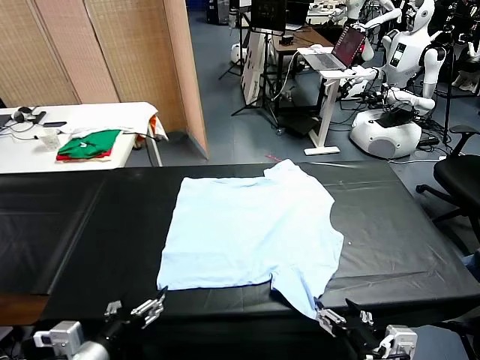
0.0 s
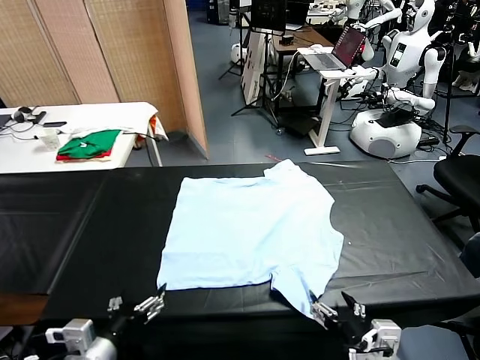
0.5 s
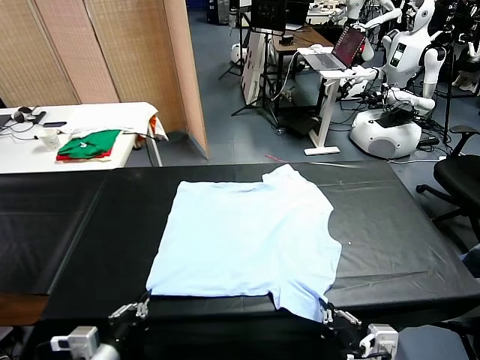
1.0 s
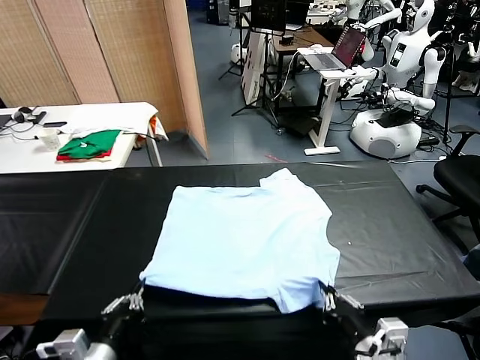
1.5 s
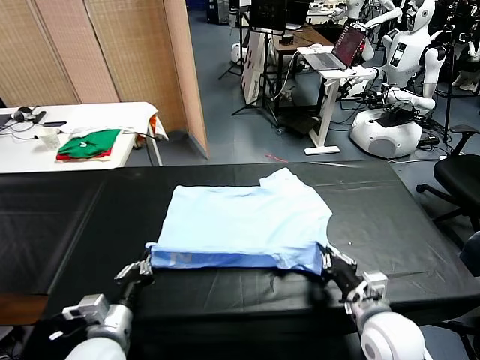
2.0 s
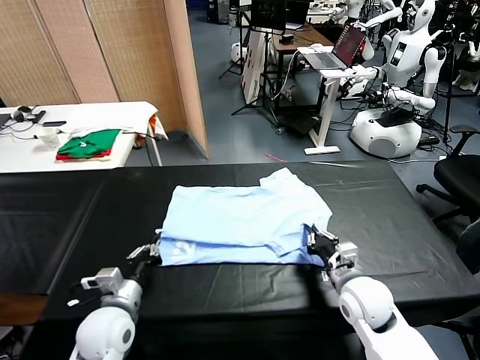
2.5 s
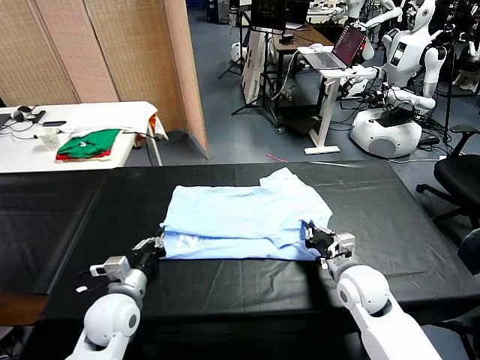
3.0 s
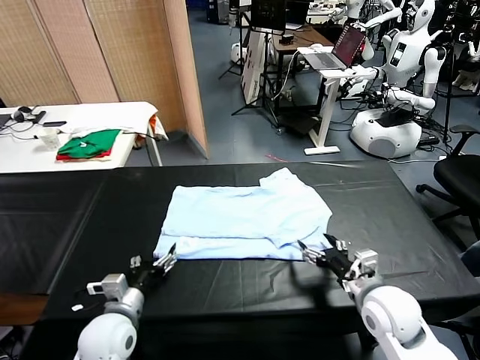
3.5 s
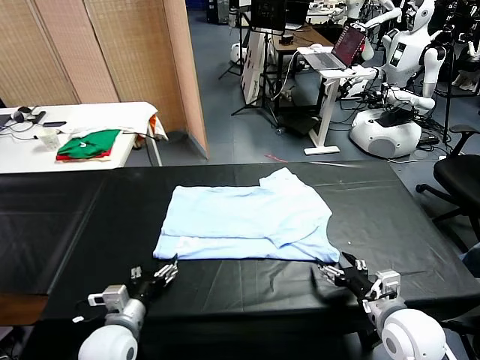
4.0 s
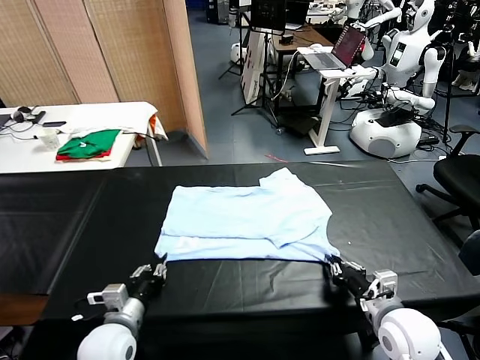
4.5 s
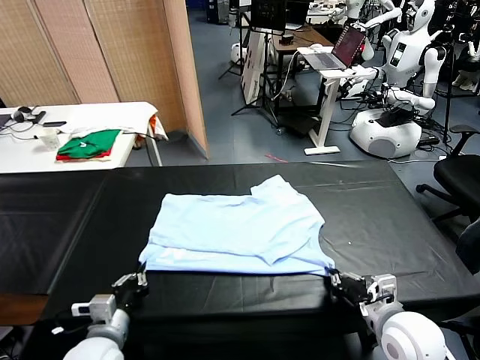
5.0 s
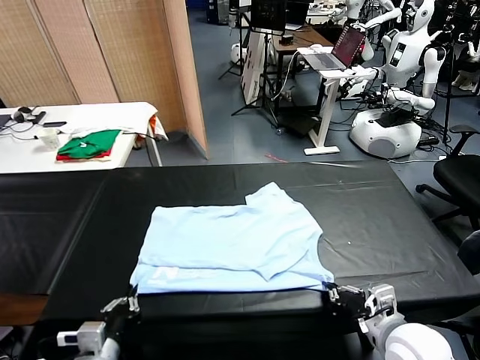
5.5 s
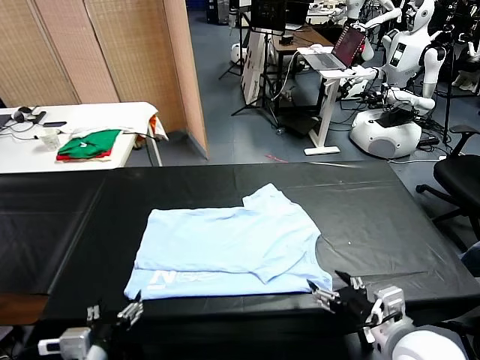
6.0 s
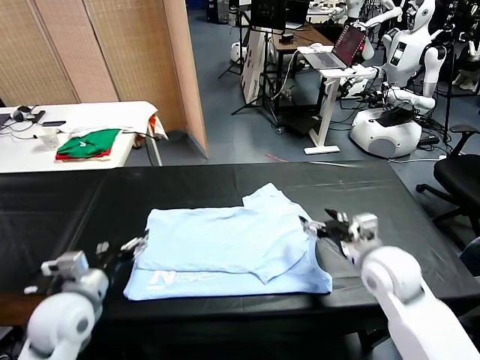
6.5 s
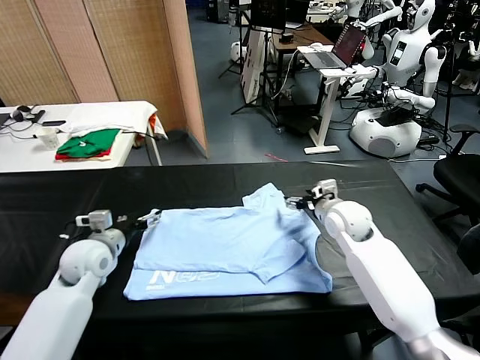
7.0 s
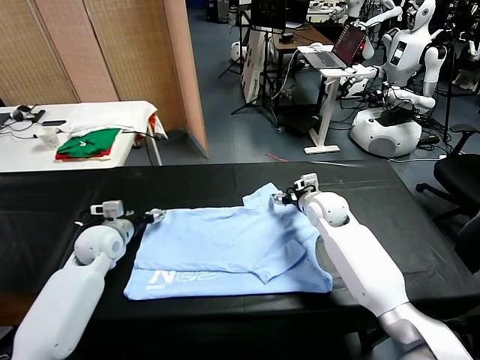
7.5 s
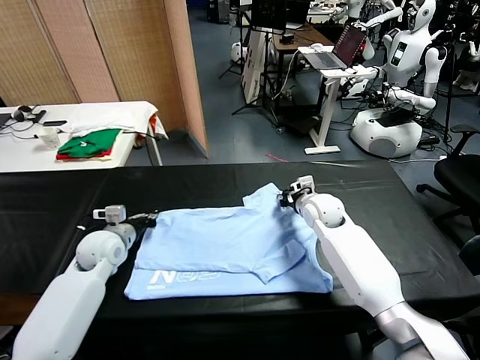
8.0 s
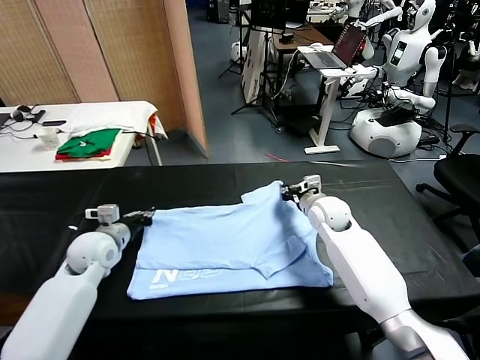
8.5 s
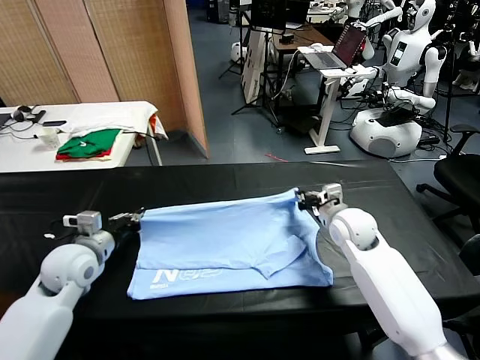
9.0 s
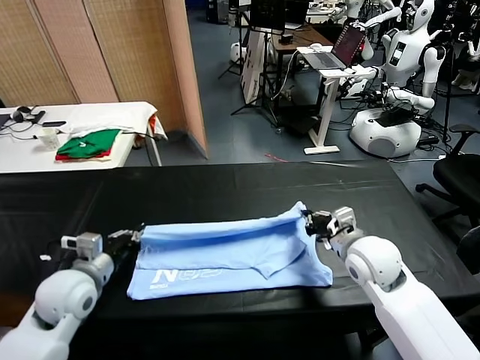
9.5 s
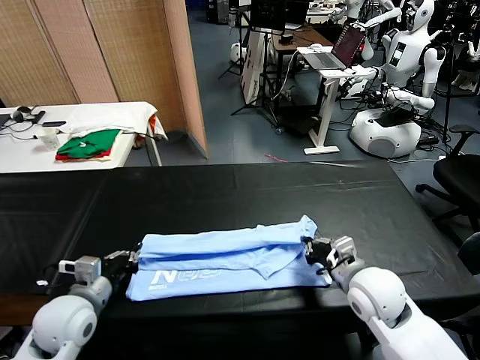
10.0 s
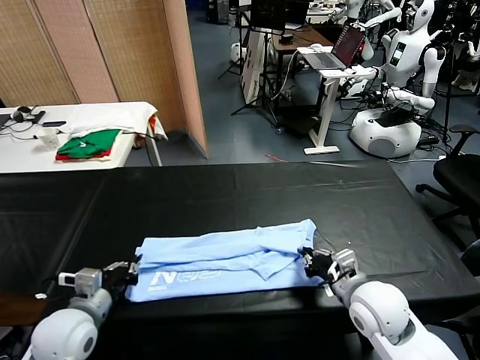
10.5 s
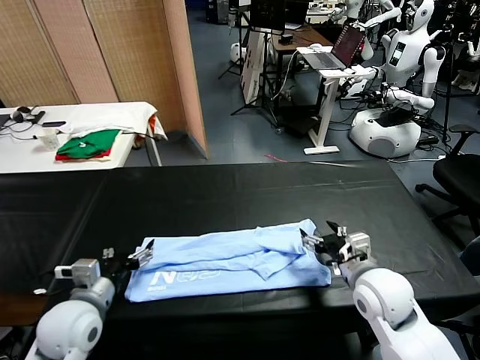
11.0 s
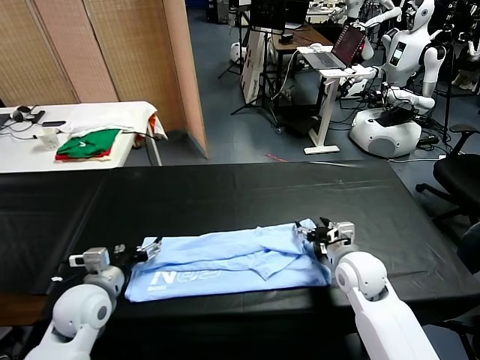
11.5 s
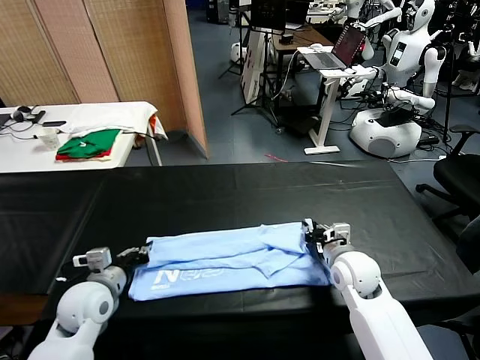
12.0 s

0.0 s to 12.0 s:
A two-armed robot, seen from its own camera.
Task of the whole recording: fold and organize the clothes.
Step, 0.0 to 0.5 s: use both grippers simultaneously to clamp the lower edge of the clothing fabric.
Step, 1.5 to 3.0 s: use both grippers to drag the lower edge of the fabric forward and fold it over the upper edge.
Step, 3.5 to 5.5 s: Drag the clothes downward with both gripper.
Step, 6.0 to 8.0 s: use both grippers simultaneously to clamp the upper edge of the clothing fabric.
Step, 8.5 to 10.5 s: use both grippers to drag the upper edge of the fabric backward and fold it over the lower edge.
2.0 to 4.0 s: The right gripper travels forward by about 10 cm, and opens its fingers, while the left gripper ends up approximately 5 cm from where it was, and opens its fingers.
4.0 to 6.0 s: The left gripper is displaced upward, forward and to the left by some 15 cm, and closes, then opens again; the right gripper is displaced backward by roughly 5 cm, and opens up.
6.0 to 8.0 s: The left gripper shifts some 10 cm forward, and closes. Meanwhile the right gripper goes approximately 35 cm forward, and closes.
8.0 to 10.0 s: The grippers both shift backward by approximately 20 cm.
10.0 to 12.0 s: The left gripper shifts roughly 5 cm forward, and opens and closes again. The right gripper moves downward and forward, approximately 10 cm, and opens, then closes once more.

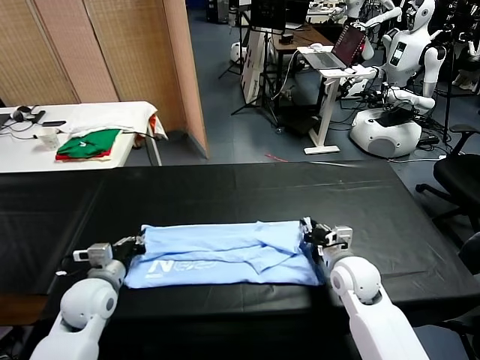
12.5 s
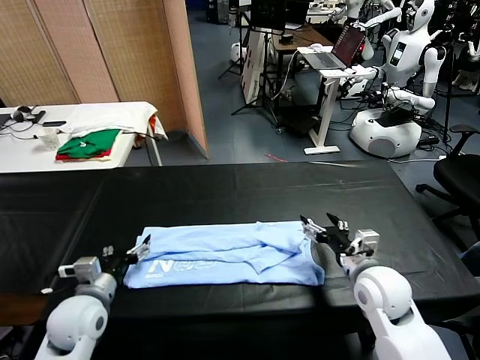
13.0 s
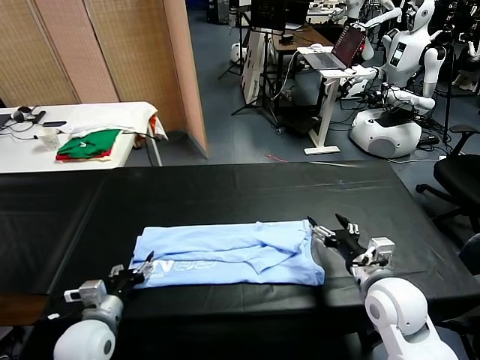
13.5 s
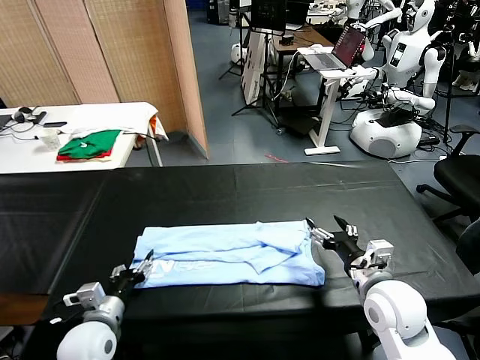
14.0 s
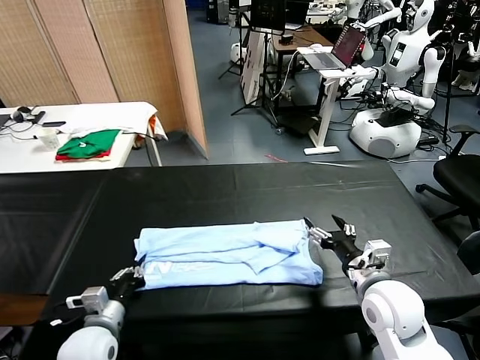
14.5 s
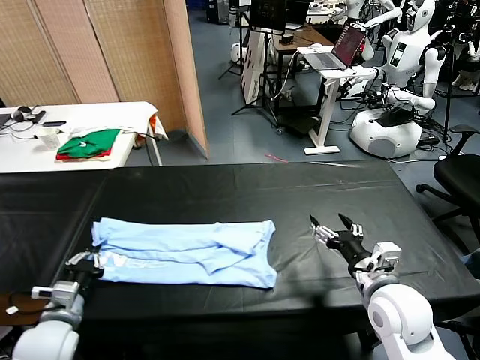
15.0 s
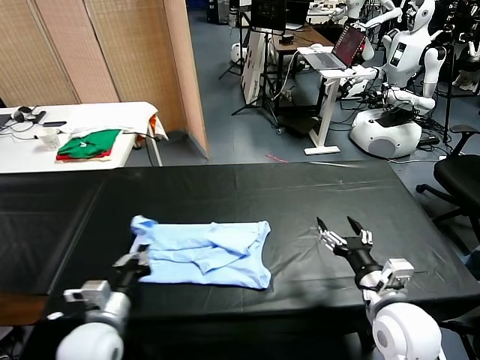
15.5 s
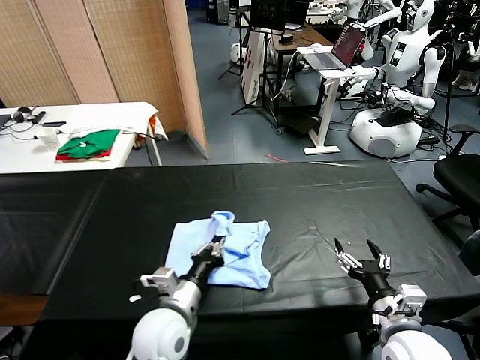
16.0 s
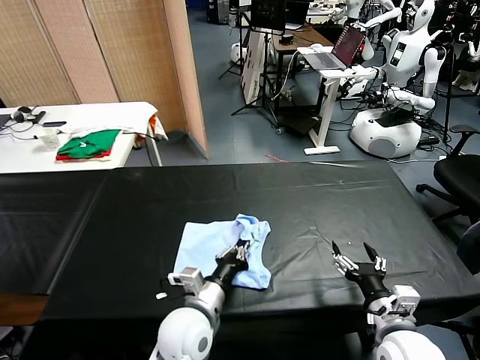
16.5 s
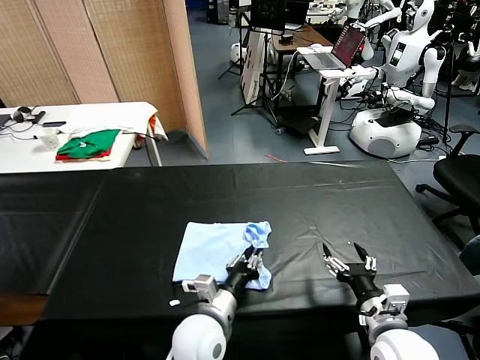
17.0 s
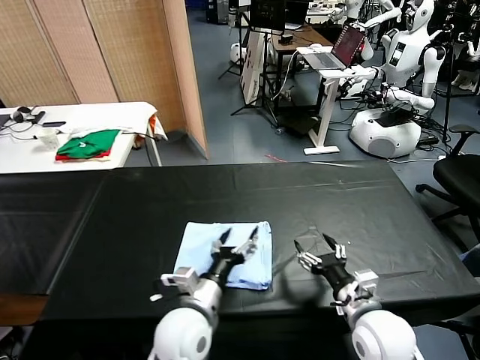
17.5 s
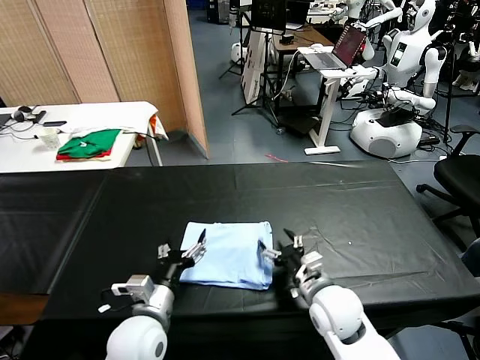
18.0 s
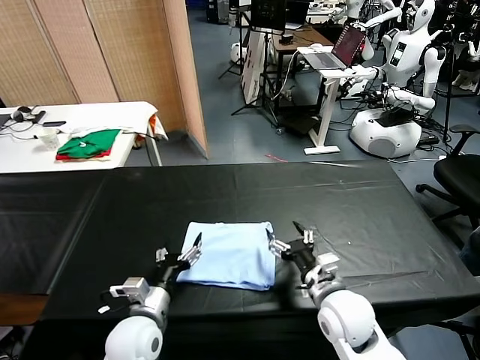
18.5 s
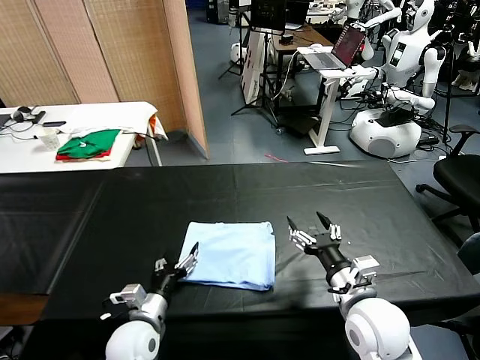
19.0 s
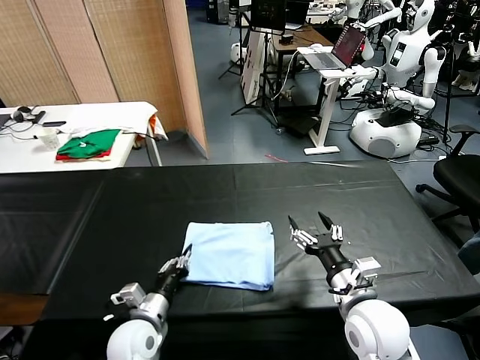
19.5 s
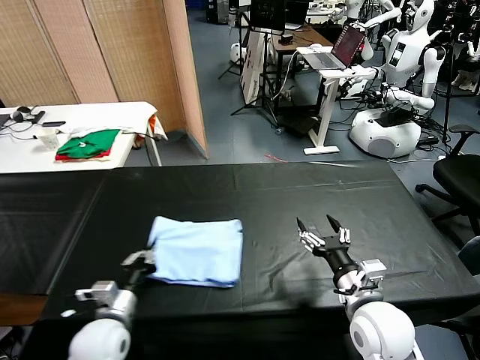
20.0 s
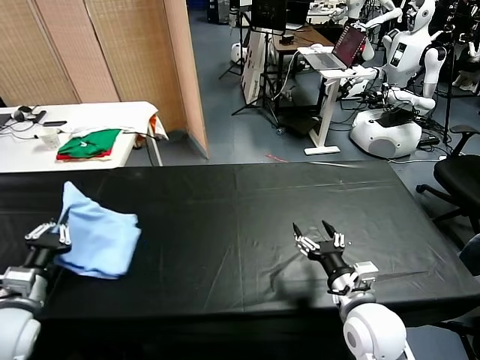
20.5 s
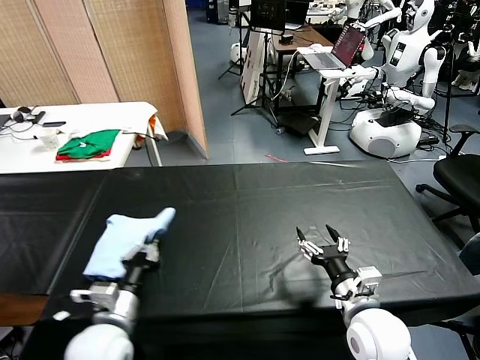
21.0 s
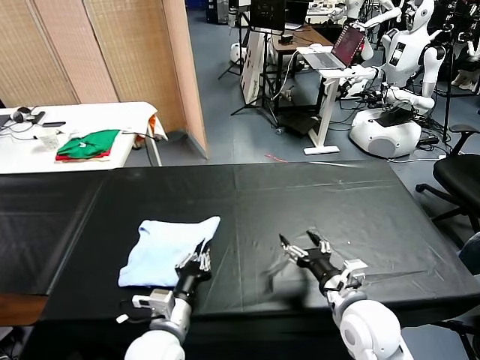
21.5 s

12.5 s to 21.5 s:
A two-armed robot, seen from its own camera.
Task of the whole recording: fold and organize the clothes.
Step, 12.5 to 14.5 s: use the left gripper to clamp the left edge of the fabric.
Step, 15.0 to 17.0 s: use the left gripper to drag the left edge of the fabric to the left and folds it over the right edge.
12.5 to 14.5 s: The left gripper shifts roughly 5 cm backward, and opens, then closes again; the right gripper heads backward and upward, covering roughly 10 cm, and opens its fingers.
14.5 to 17.0 s: The right gripper is displaced backward by some 10 cm, while the left gripper heads to the right, covering some 25 cm, and opens up.
17.0 to 19.5 s: The left gripper moves to the left, some 15 cm, and closes.
19.5 to 21.5 s: The left gripper moves upward, about 5 cm, and goes to the left and returns, roughly 15 cm each way.

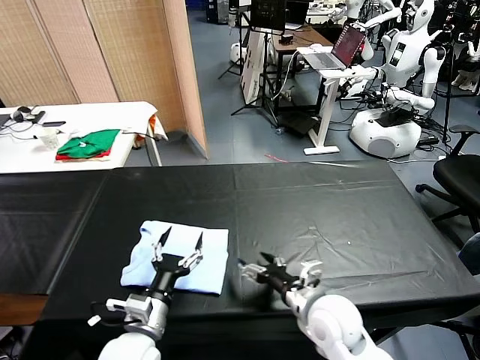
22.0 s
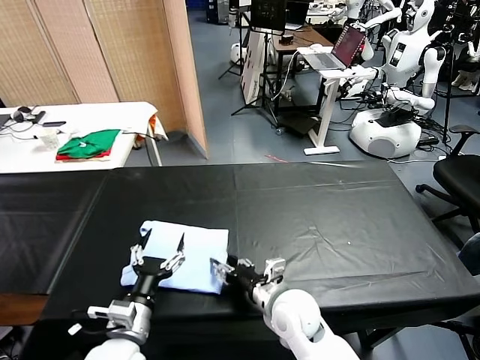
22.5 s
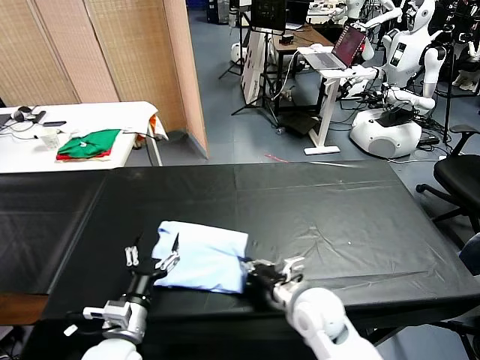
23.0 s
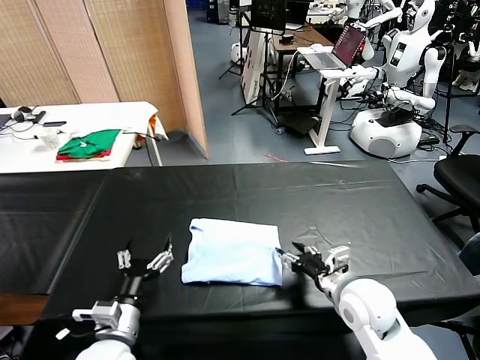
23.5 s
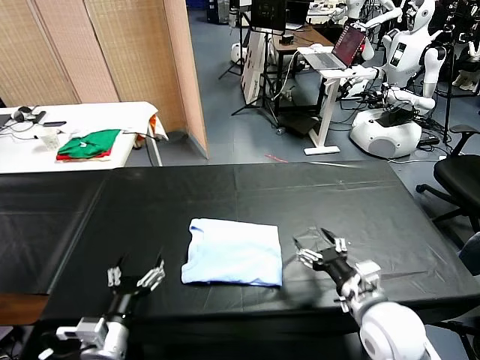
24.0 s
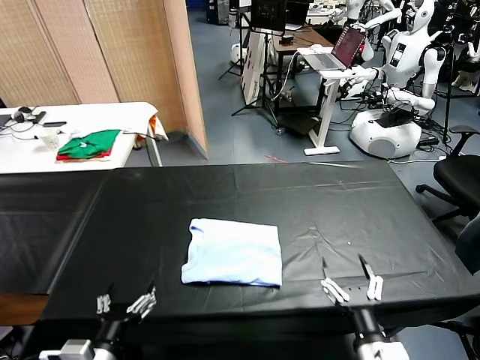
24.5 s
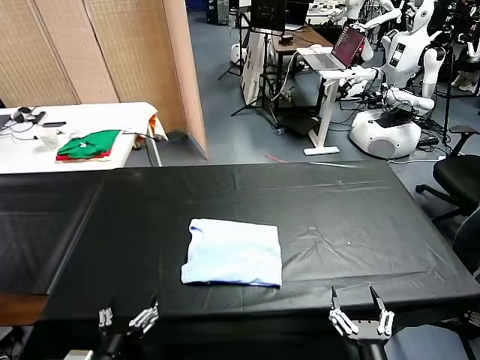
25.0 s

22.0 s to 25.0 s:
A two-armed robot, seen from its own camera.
Task of the whole recording: fold and organize the clothes.
Step, 22.0 to 23.5 s: Drag the clothes to the center of the table.
22.0 to 23.5 s: The right gripper travels to the left and back again, roughly 10 cm each way, and closes.
23.5 to 25.0 s: The left gripper moves backward, about 10 cm, while the right gripper shifts approximately 20 cm backward, and opens.
